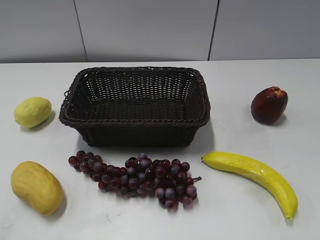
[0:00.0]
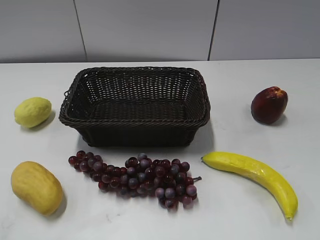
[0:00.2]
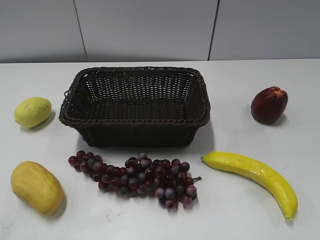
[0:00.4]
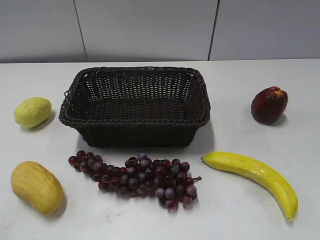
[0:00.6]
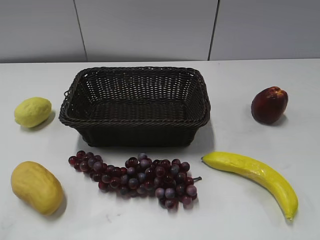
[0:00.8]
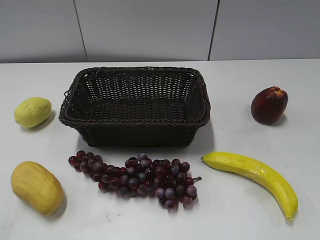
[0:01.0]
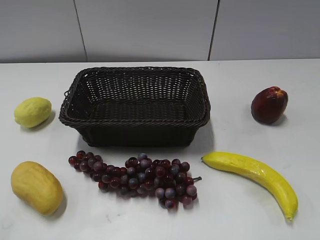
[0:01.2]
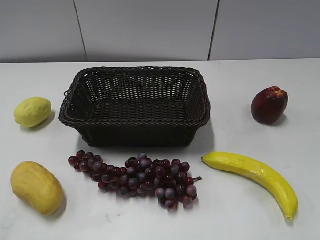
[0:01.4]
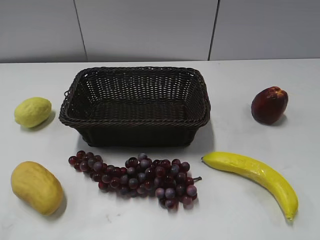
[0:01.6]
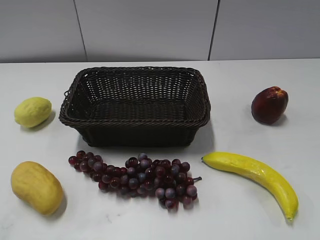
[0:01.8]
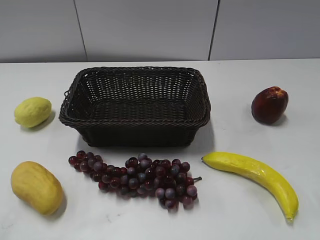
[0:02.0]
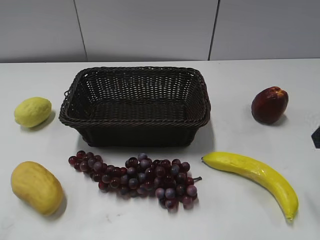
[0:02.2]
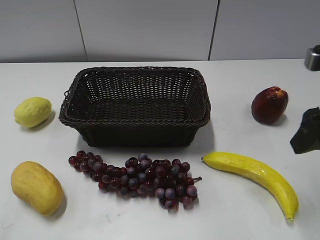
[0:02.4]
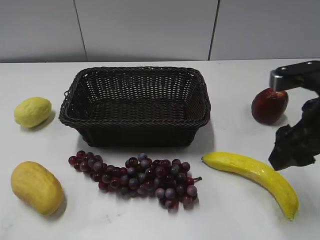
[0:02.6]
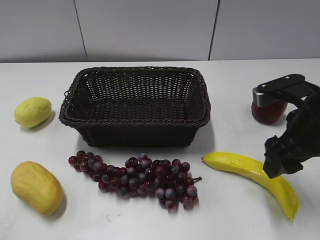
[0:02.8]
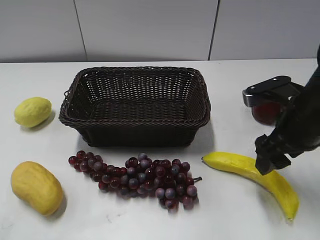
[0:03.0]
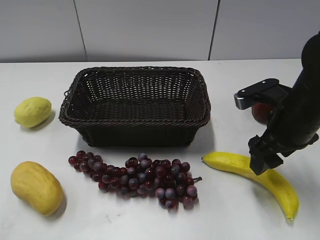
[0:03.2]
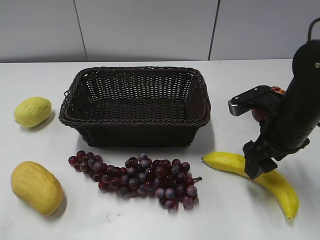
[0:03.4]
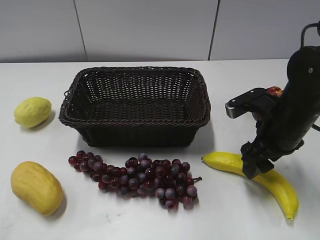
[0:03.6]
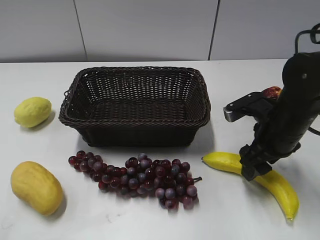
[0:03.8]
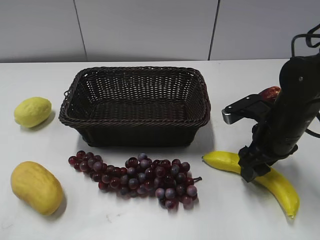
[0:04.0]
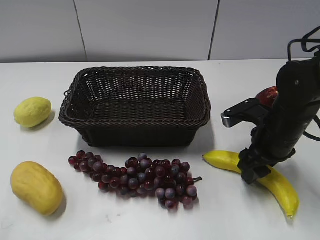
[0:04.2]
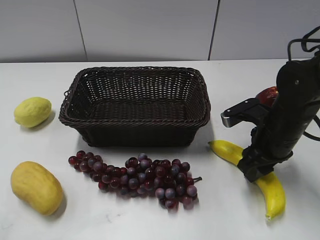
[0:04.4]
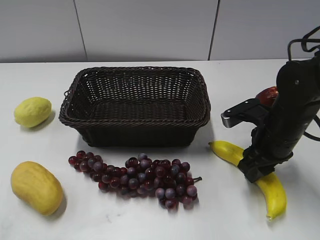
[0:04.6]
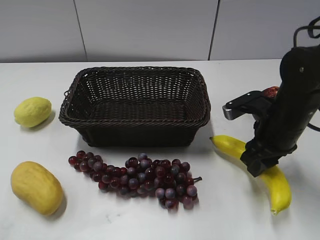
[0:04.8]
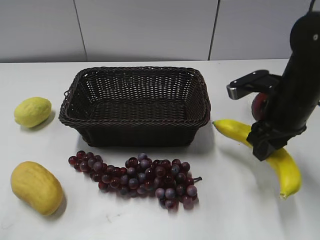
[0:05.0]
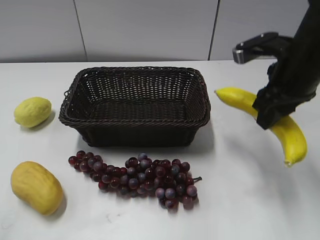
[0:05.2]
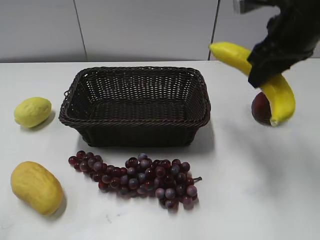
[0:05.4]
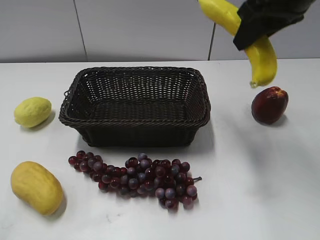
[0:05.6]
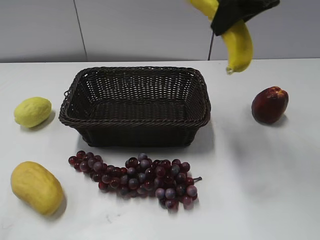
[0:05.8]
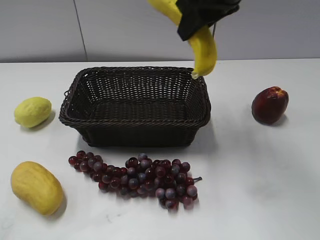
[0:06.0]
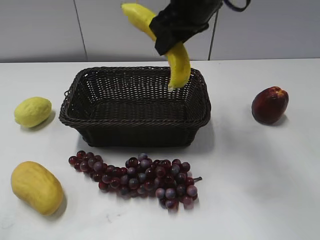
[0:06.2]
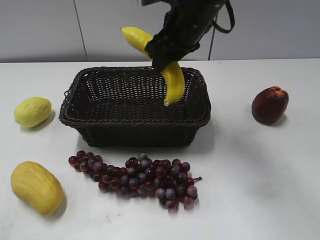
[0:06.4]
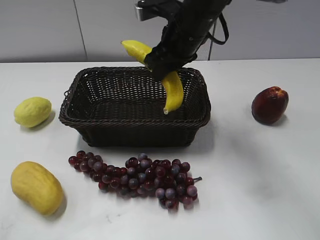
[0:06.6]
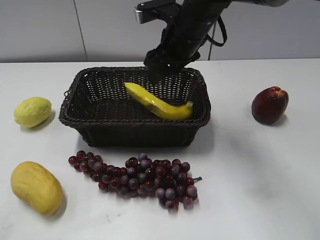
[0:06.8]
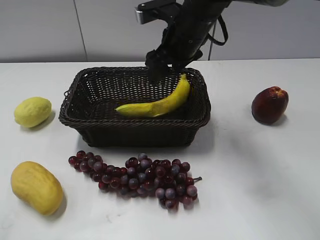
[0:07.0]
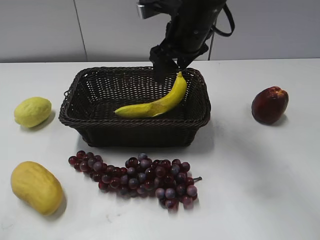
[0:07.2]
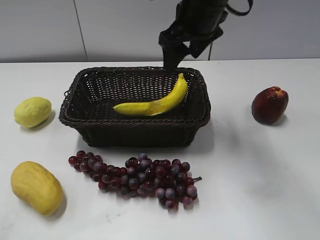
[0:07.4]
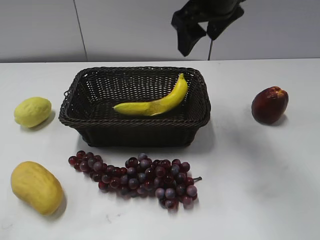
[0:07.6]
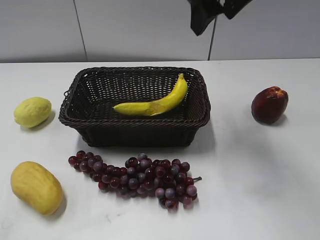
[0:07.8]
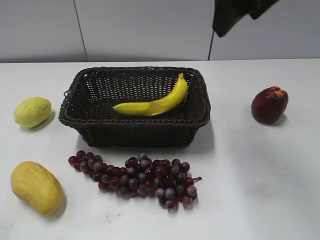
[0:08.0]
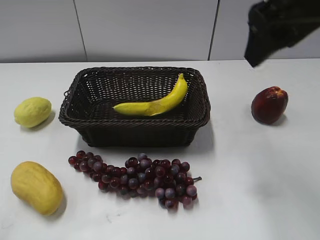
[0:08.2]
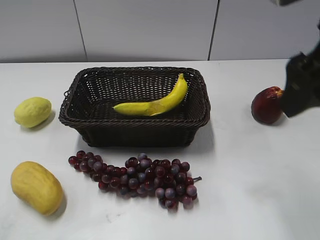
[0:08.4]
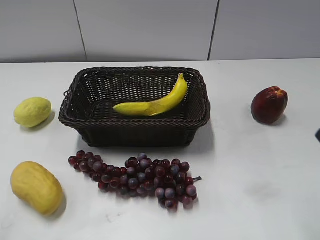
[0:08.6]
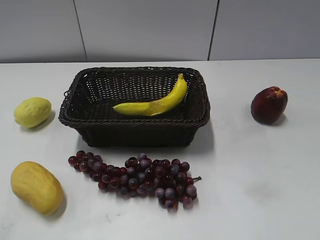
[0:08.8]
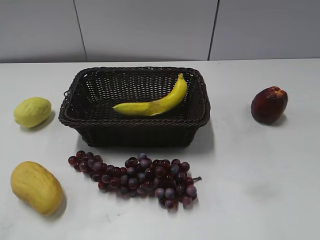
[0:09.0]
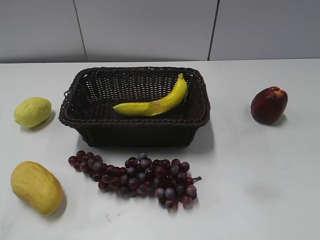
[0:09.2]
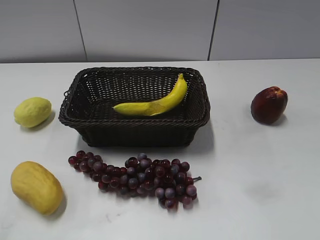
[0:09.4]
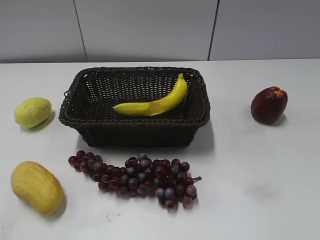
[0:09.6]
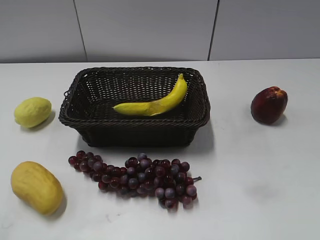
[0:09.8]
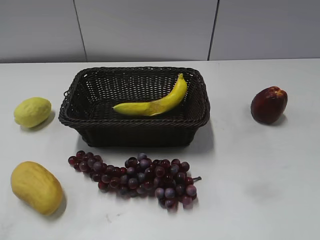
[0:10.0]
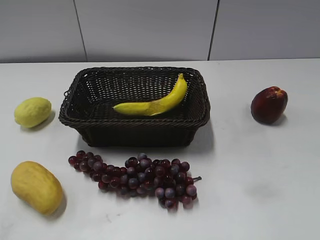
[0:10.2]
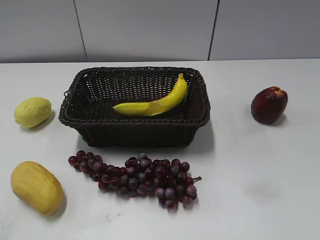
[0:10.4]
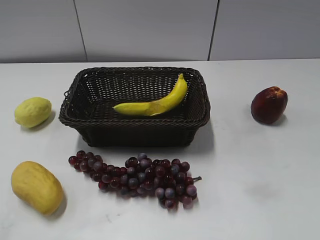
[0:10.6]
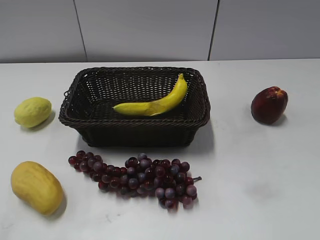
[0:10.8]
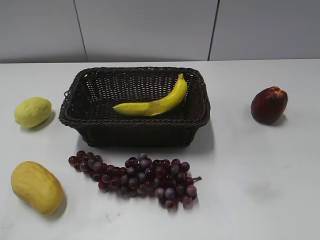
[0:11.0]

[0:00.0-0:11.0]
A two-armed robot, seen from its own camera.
Step, 0:02.2 to 0:04.2: Grasp the banana with right gripper.
Step, 0:04.6 to 0:07.0: Place the banana in the basket with right gripper.
0:01.6 to 0:03.2: The right gripper is displaced forward, downward and to the left by about 20 cm.
0:03.2 to 0:04.8: The right gripper closes.
0:04.8 to 0:06.2: The right gripper goes roughly 25 cm upward, to the left and forward.
0:06.2 to 0:07.8: The right gripper travels upward by approximately 5 cm, and opens its fingers.
0:07.8 to 0:09.4: The right gripper is displaced backward and to the right by approximately 40 cm.

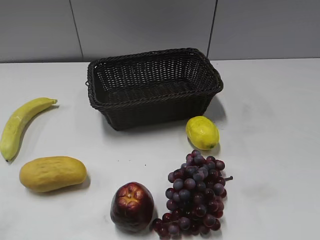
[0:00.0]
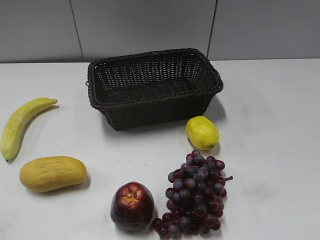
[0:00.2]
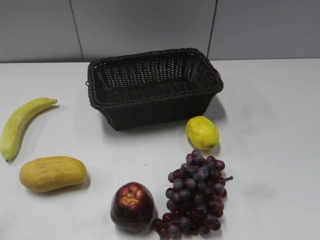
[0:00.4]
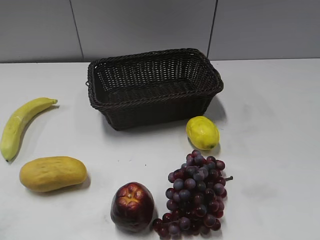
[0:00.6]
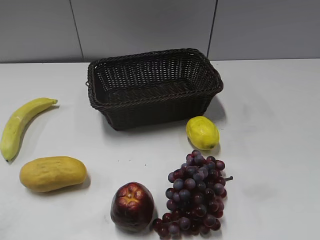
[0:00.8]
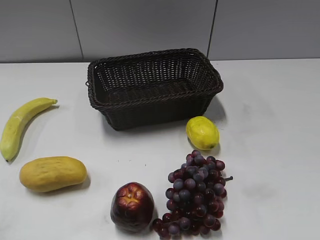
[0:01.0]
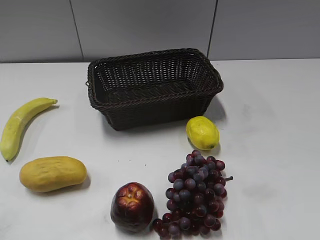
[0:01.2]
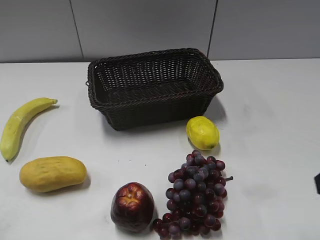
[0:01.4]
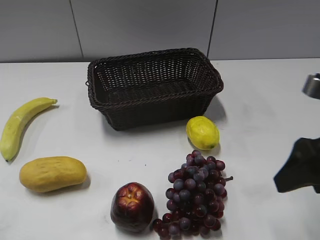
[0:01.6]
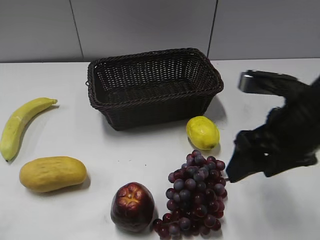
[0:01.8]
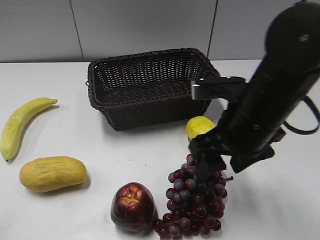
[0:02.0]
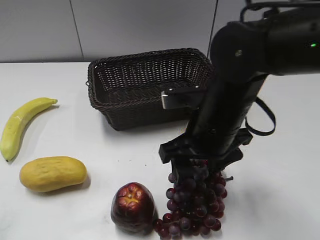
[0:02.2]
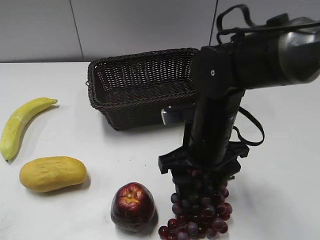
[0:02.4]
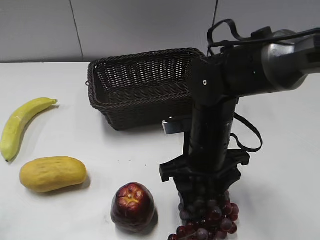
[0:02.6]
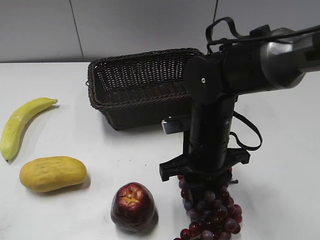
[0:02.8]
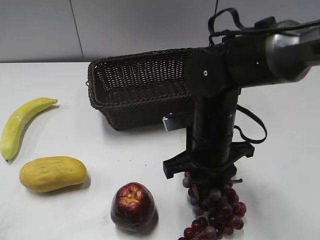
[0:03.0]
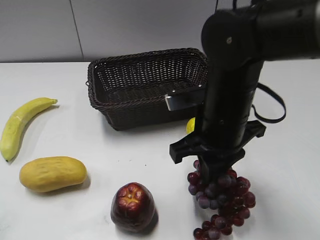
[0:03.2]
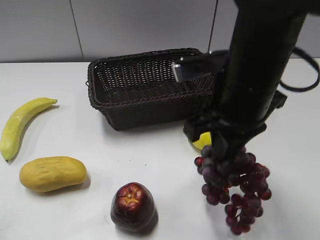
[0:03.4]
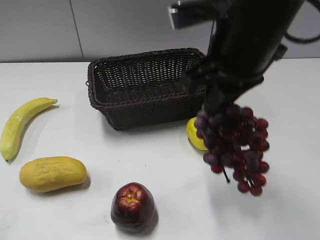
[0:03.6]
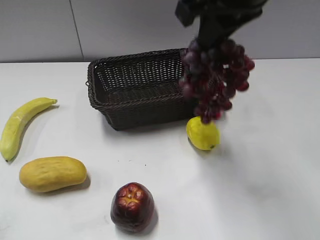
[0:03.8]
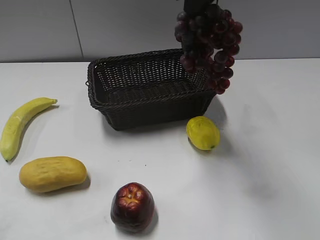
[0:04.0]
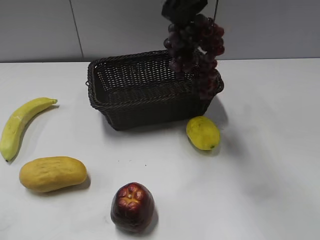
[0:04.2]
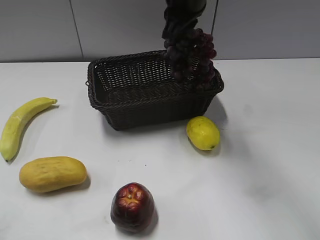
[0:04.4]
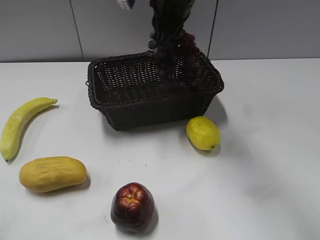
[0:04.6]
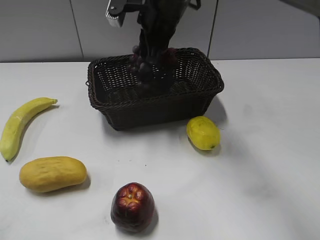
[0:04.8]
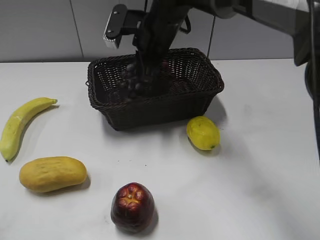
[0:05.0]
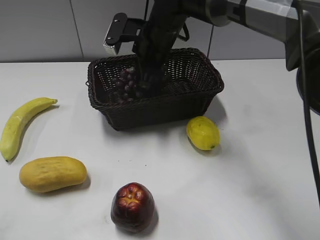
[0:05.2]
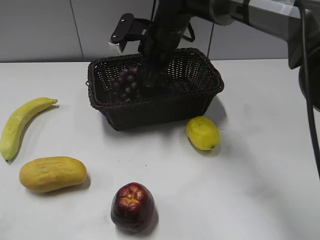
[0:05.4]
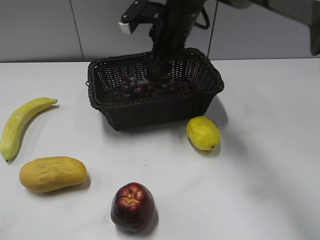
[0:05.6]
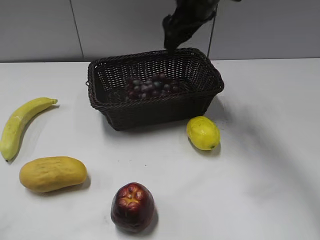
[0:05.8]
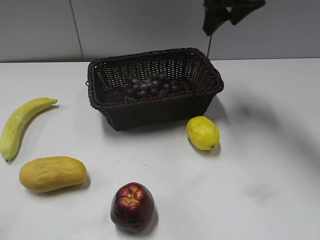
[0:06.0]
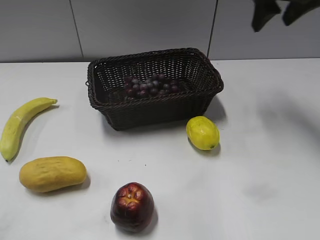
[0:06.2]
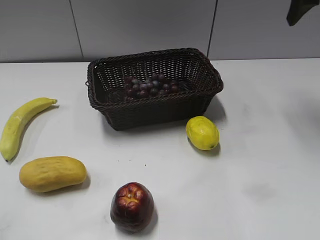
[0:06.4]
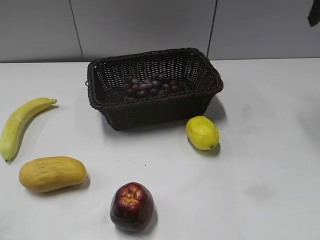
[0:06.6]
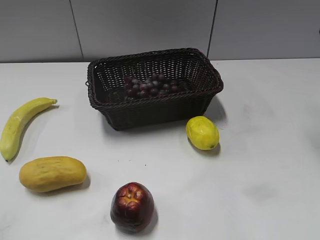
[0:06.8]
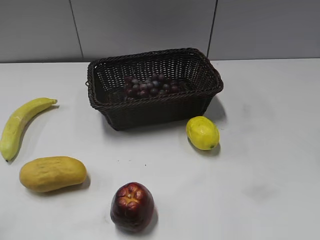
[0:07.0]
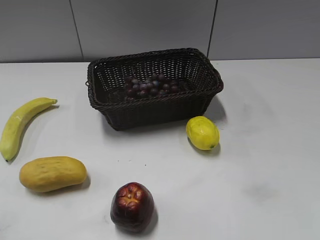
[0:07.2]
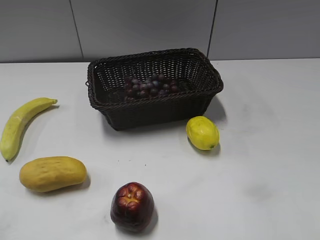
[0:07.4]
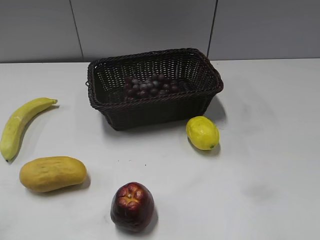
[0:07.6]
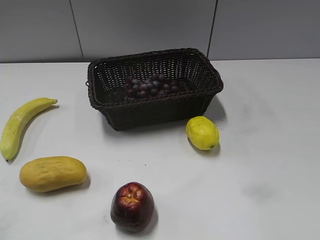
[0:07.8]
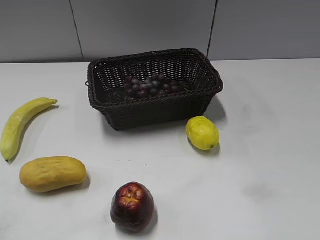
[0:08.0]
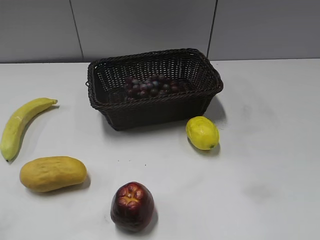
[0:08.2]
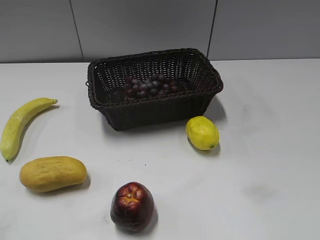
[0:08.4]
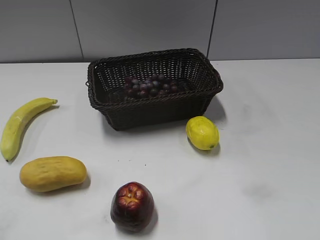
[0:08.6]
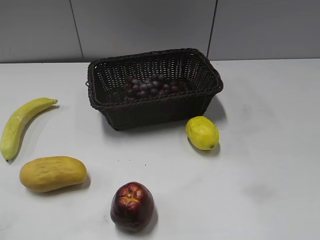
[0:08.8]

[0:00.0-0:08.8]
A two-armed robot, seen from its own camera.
Step, 0:01.4 to 0:02.6: Grasp the grape with right gripper.
Step, 0:03.0 to 0:05.4: Place the grape in the basket with right gripper.
0:01.4 to 0:03.0: The right gripper shifts about 25 cm to the left, downward and forward, and closes its fingers.
0:03.0 to 0:04.4: The right gripper shifts roughly 20 cm upward and forward.
0:04.4 to 0:05.8: The right gripper travels downward and back again, about 10 cm each way, and opens its fingers.
0:05.8 to 0:07.4: The right gripper moves backward and to the right, approximately 35 cm.

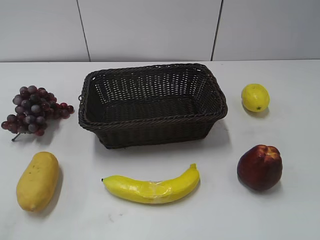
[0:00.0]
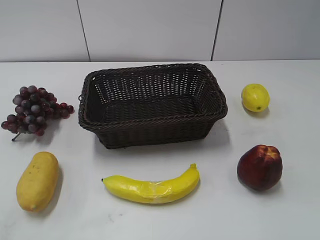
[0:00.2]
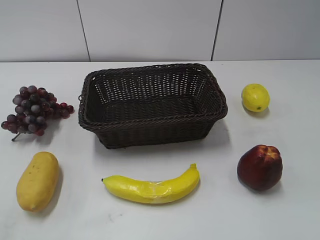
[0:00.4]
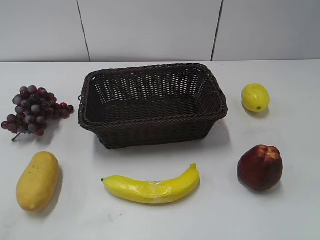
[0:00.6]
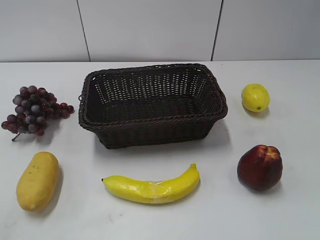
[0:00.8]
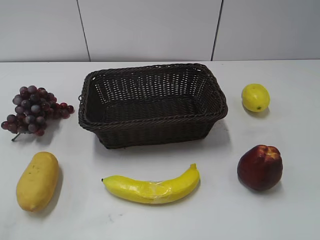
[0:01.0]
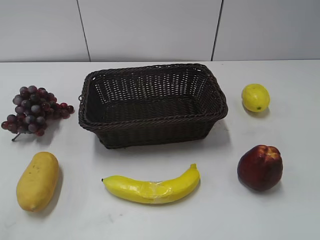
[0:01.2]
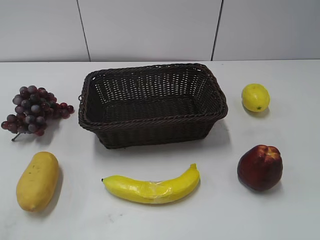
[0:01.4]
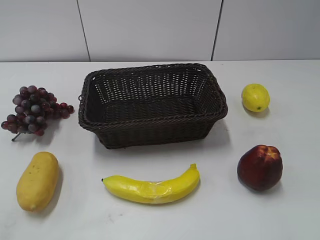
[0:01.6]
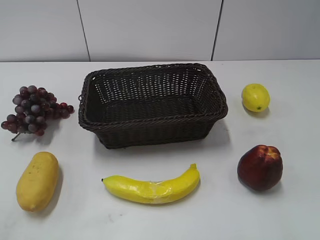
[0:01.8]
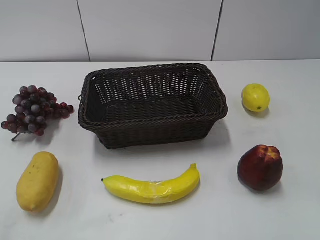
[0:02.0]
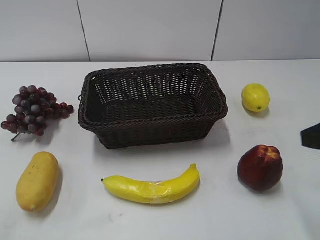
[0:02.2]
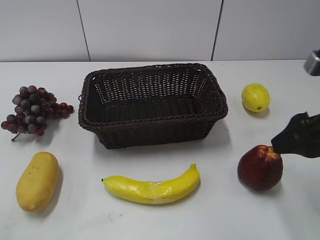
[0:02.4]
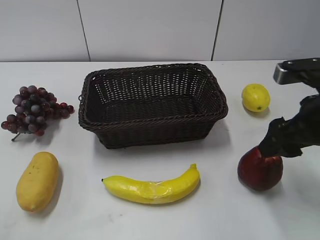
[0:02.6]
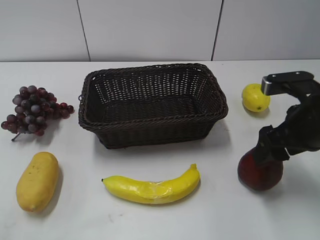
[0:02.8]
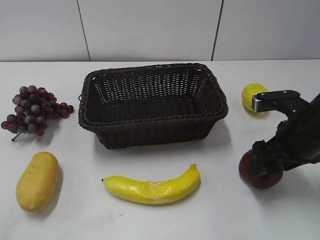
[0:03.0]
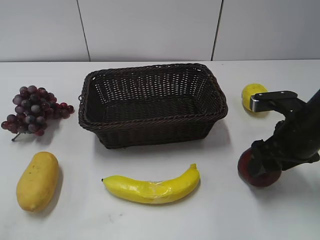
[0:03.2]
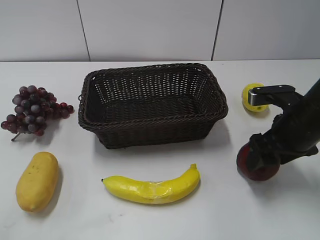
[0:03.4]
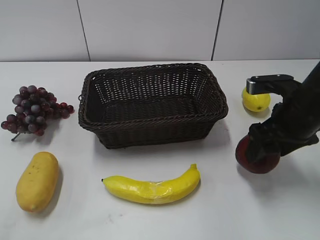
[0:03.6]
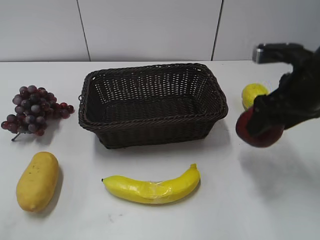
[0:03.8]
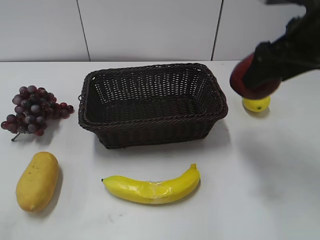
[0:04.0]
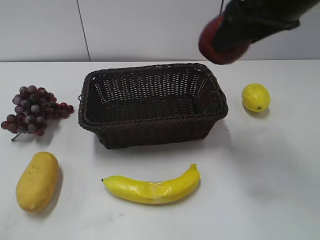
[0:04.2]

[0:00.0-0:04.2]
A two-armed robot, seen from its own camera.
Step, 0:02.2 to 0:02.8: Grasp the apple with right gripper.
0:01.4 to 0:02.8: The right gripper moves forward and downward, about 25 cm.
0:02.8 to 0:04.2: The right gripper travels upward and to the left by approximately 15 cm.
